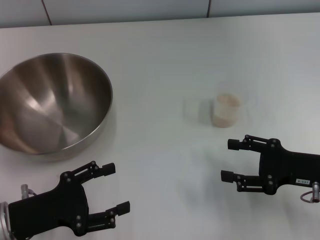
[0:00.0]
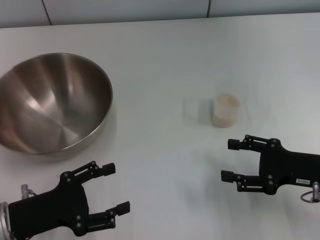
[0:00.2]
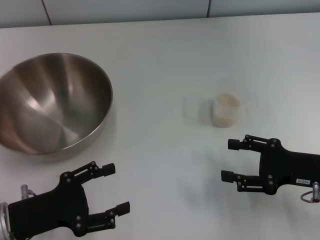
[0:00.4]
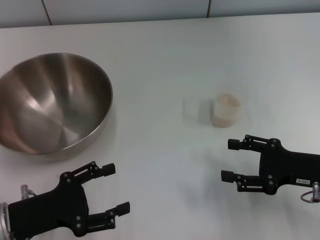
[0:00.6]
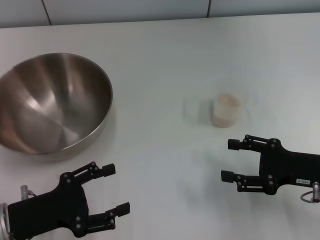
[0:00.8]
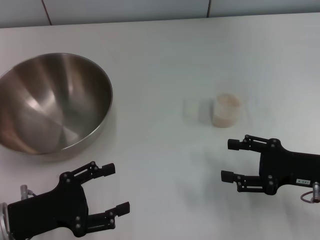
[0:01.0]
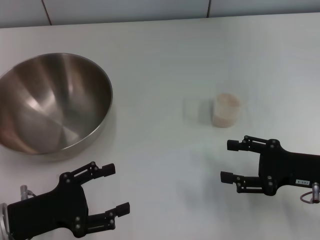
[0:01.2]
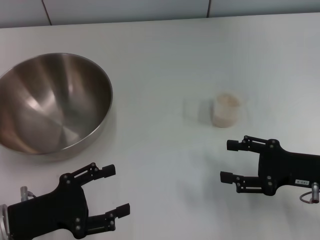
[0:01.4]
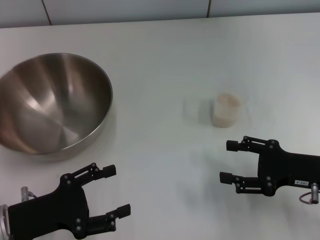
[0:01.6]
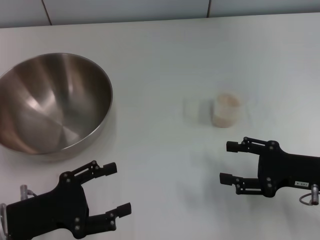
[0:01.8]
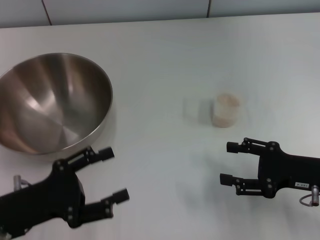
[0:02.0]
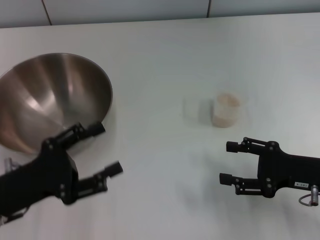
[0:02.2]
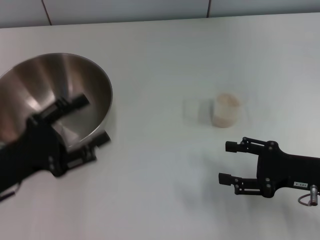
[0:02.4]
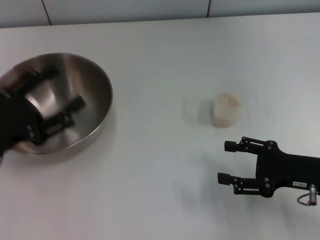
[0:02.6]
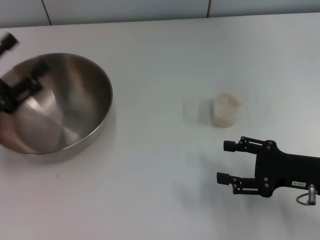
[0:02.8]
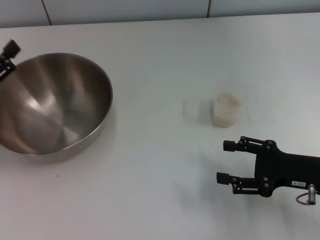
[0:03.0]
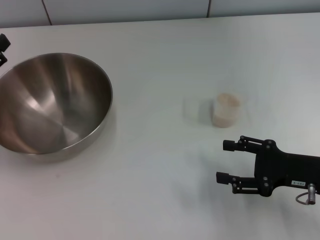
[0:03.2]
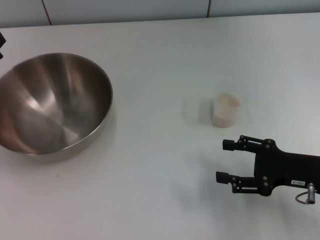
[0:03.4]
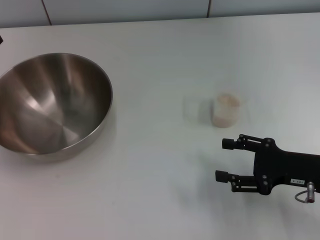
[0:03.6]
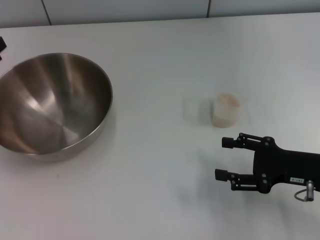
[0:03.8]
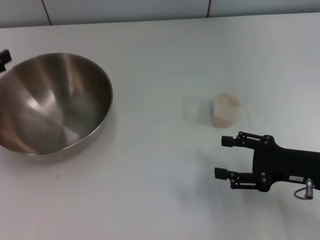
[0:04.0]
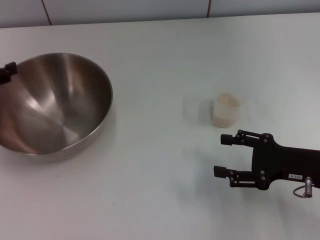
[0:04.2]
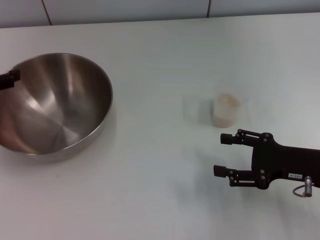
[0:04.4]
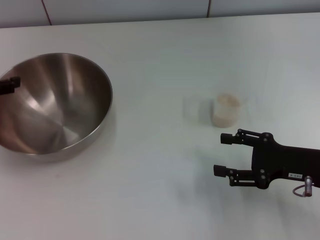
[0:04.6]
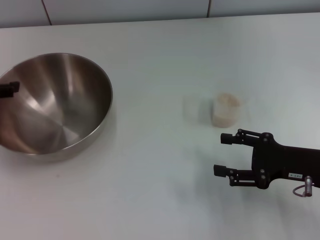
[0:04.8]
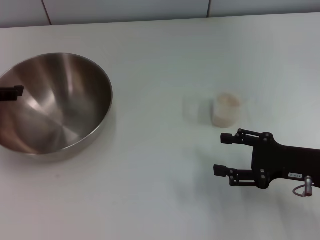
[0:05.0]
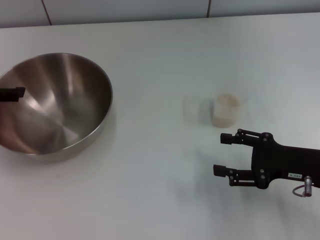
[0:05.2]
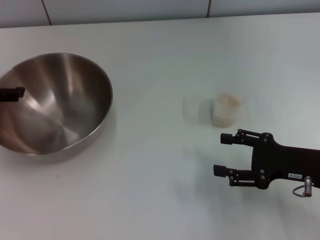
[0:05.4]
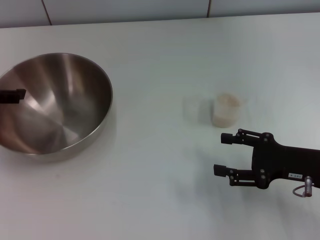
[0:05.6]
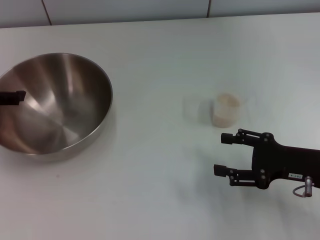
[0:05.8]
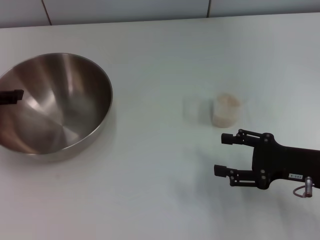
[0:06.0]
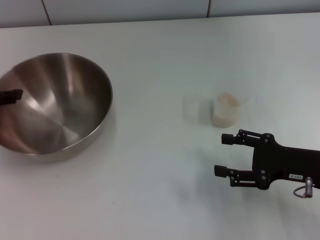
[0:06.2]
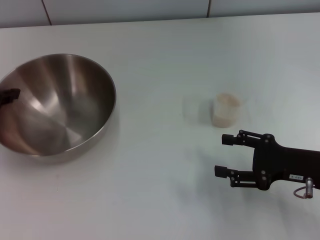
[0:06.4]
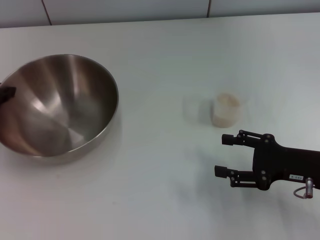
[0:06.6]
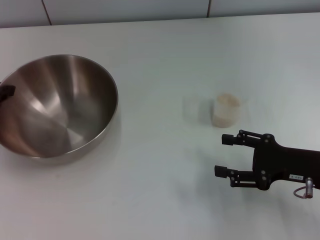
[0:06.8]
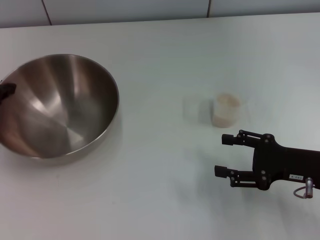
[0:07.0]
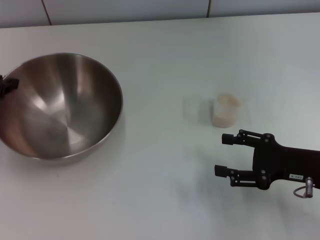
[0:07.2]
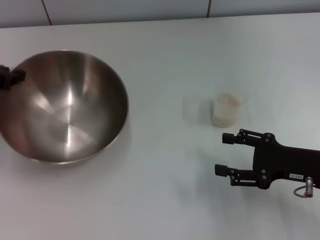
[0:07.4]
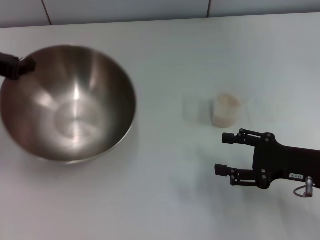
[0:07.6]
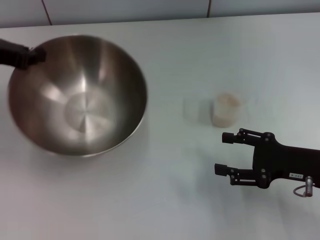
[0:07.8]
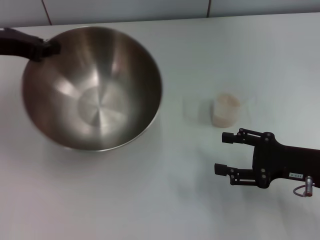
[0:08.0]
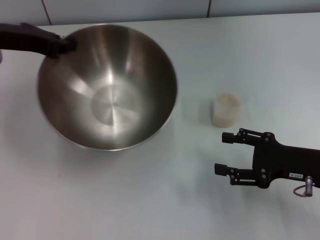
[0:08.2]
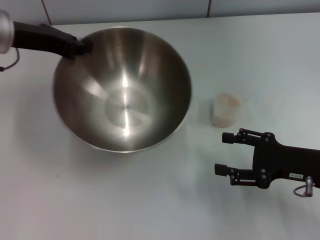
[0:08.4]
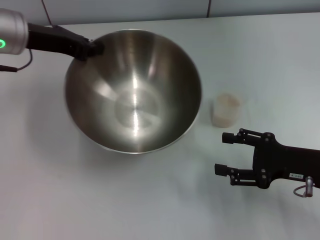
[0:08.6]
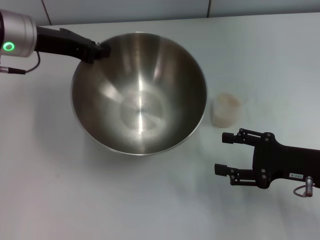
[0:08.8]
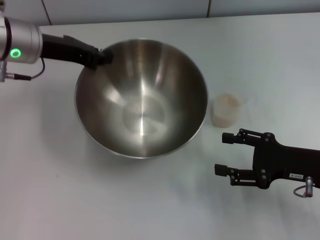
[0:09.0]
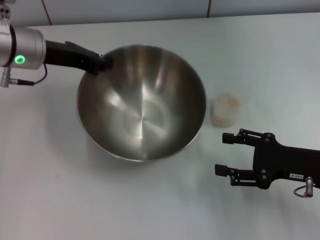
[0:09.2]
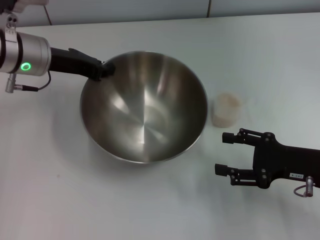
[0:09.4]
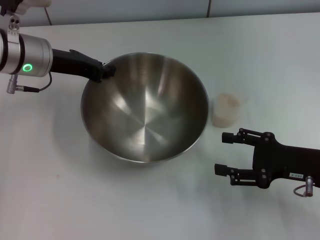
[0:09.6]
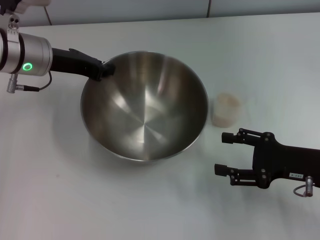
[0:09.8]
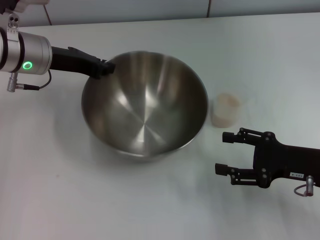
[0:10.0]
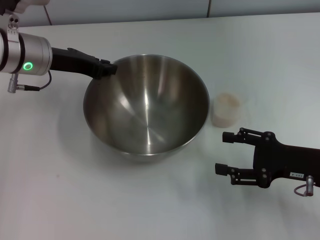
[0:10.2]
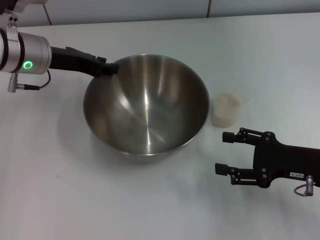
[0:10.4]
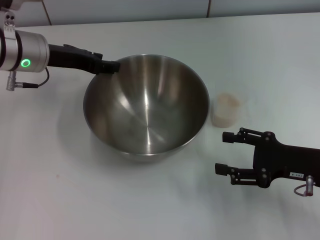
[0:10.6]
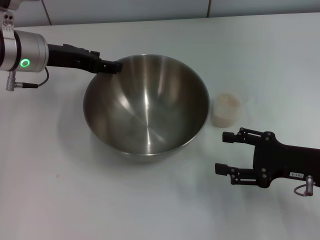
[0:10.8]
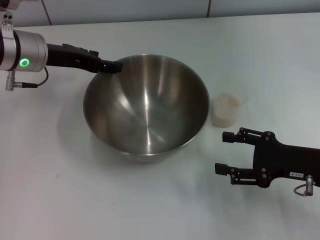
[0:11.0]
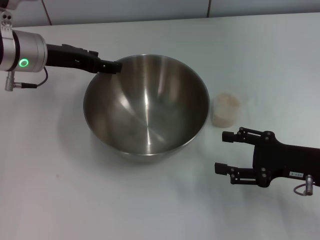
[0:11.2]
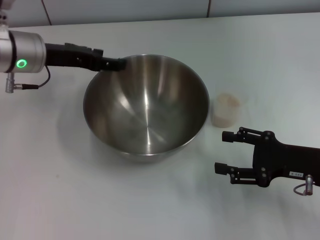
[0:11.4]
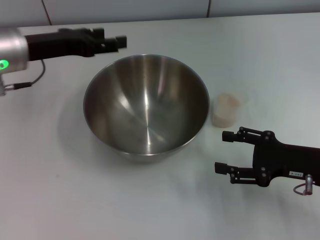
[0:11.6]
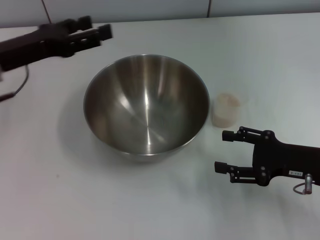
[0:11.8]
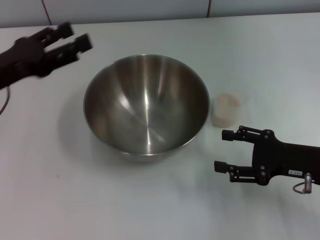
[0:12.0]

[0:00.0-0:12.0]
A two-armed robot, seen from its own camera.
Task of the whole recording: Place the bowl in the middle of the table with one hand and pour the rice from the grain cup into it with the other hand.
Step, 0:00.0 to 0:07.8: Pick up the bowl with the left gripper.
Step, 0:08.0 to 0:11.6: Place the bowl in the center of view with the left gripper.
0:00.0 to 0:01.6: Neither gripper changes place.
0:01.6 to 0:03.0: The left gripper heads forward, to the left and upward, covering roughly 10 cm.
0:03.0 to 0:04.4: The left gripper shifts approximately 5 cm forward.
0:04.4 to 0:06.0: The grippers make only small movements.
0:06.0 to 0:07.6: The left gripper moves roughly 5 cm, and closes up.
0:07.6 to 0:09.0: The left gripper travels to the right by roughly 10 cm.
0:09.0 to 0:10.4: The grippers make only small movements.
0:10.4 to 0:12.0: The left gripper goes roughly 10 cm backward and to the left, and opens.

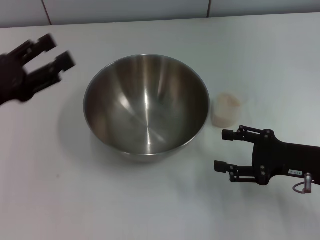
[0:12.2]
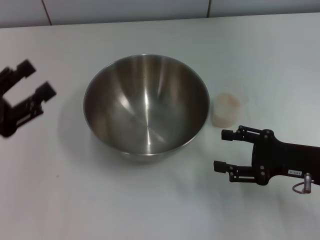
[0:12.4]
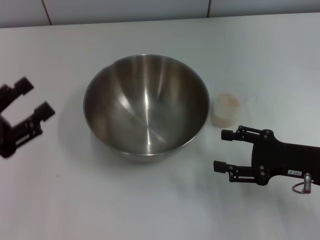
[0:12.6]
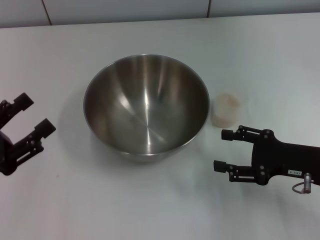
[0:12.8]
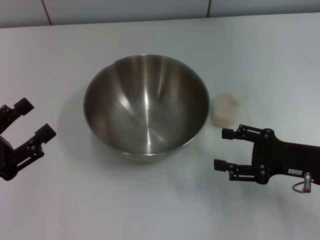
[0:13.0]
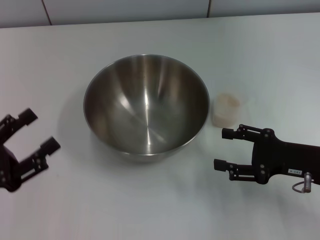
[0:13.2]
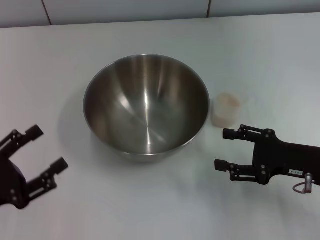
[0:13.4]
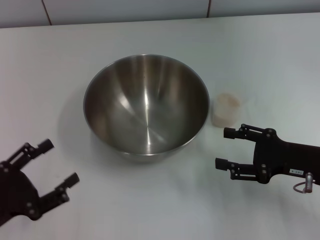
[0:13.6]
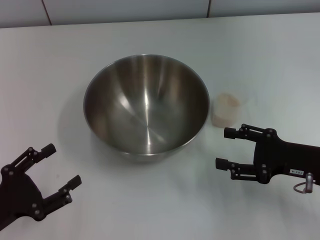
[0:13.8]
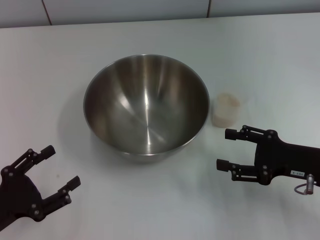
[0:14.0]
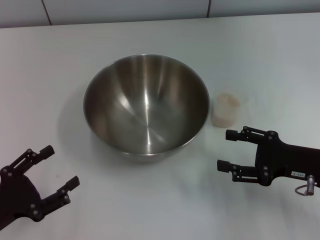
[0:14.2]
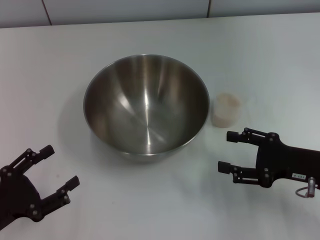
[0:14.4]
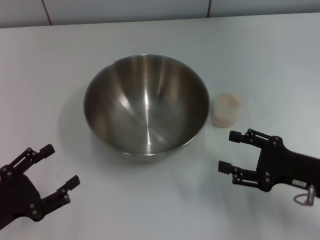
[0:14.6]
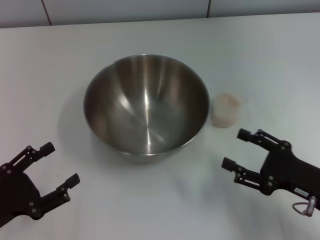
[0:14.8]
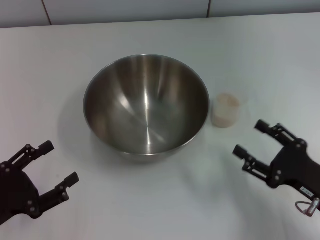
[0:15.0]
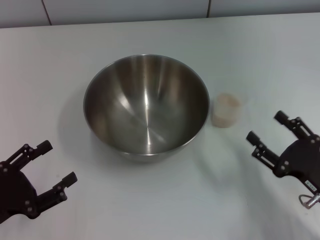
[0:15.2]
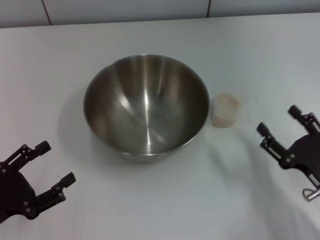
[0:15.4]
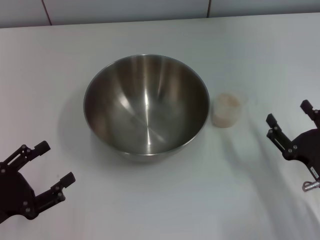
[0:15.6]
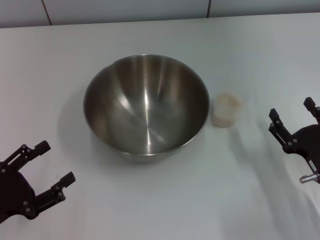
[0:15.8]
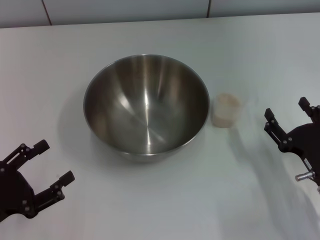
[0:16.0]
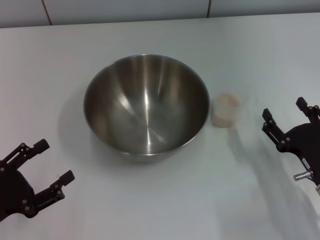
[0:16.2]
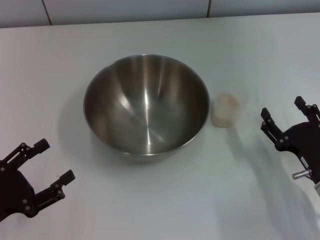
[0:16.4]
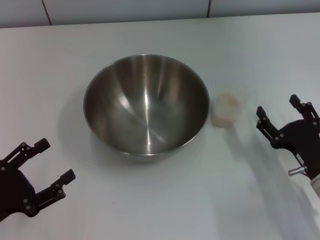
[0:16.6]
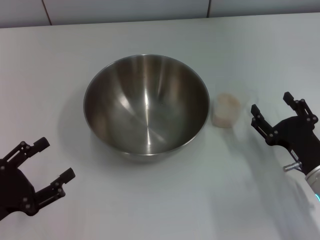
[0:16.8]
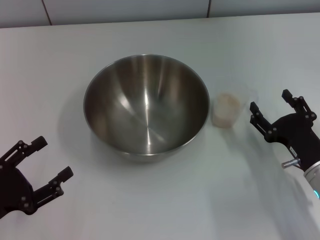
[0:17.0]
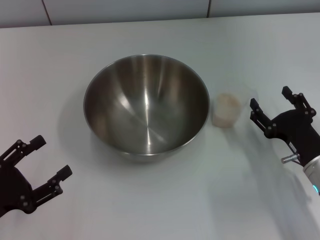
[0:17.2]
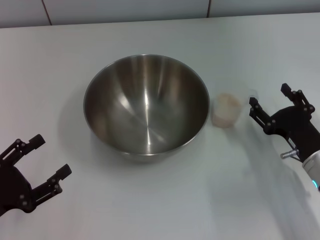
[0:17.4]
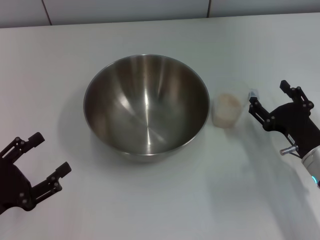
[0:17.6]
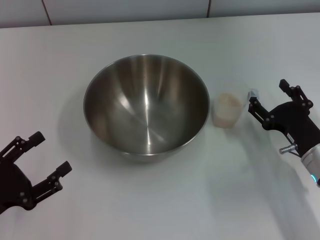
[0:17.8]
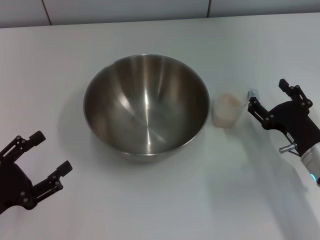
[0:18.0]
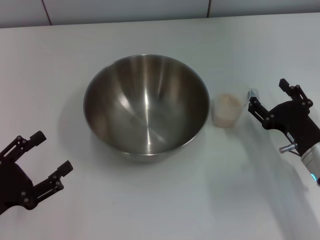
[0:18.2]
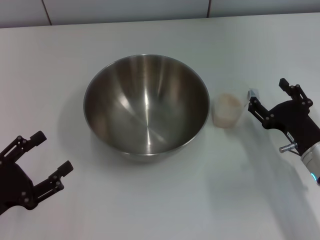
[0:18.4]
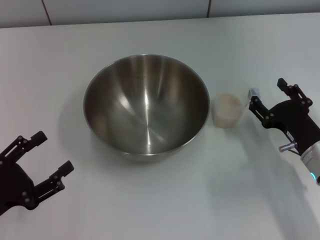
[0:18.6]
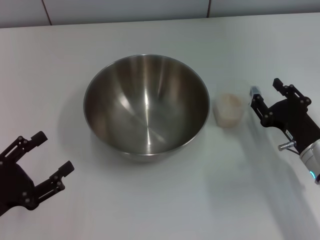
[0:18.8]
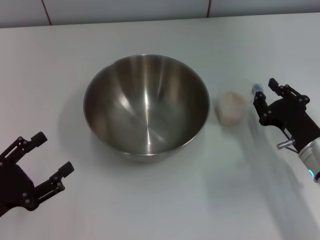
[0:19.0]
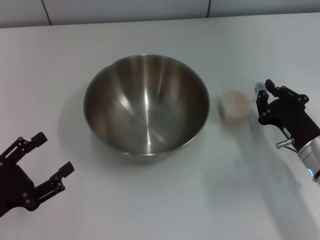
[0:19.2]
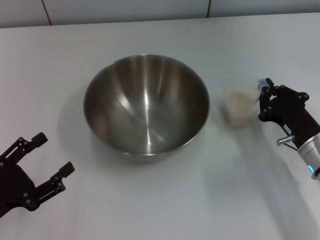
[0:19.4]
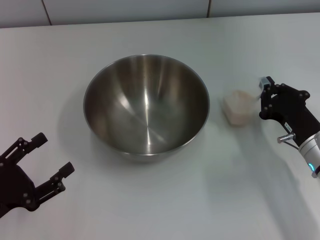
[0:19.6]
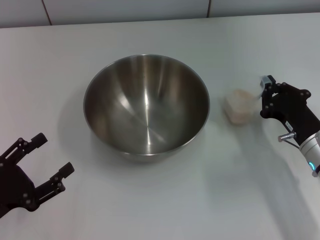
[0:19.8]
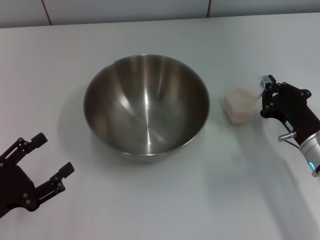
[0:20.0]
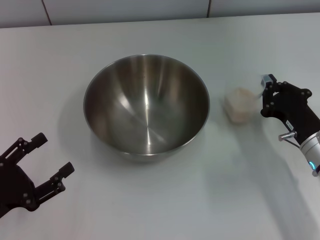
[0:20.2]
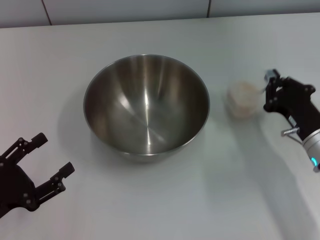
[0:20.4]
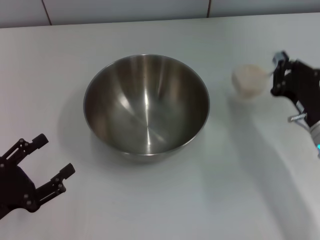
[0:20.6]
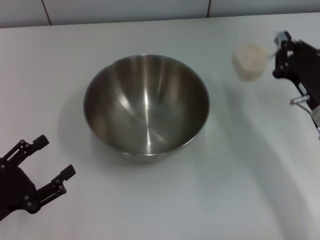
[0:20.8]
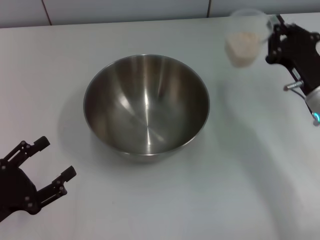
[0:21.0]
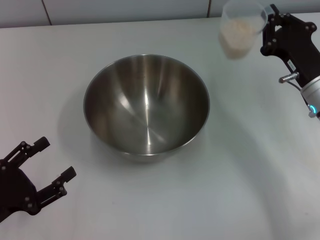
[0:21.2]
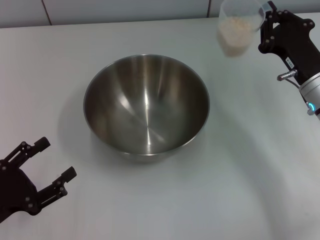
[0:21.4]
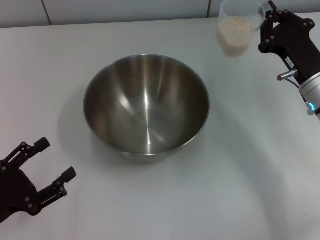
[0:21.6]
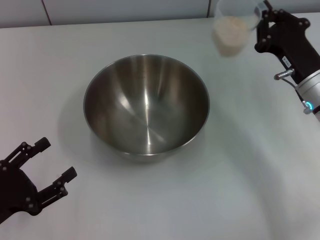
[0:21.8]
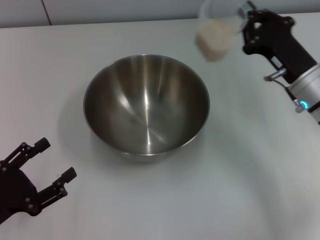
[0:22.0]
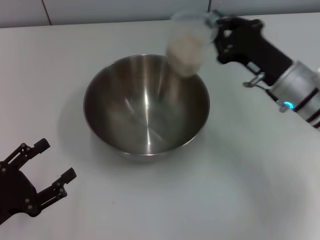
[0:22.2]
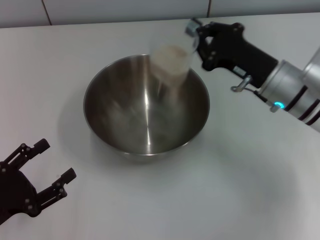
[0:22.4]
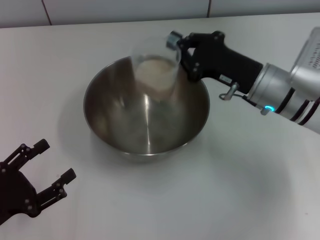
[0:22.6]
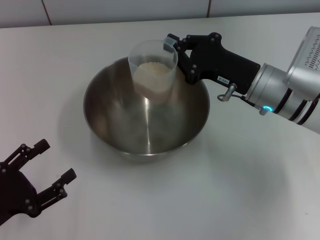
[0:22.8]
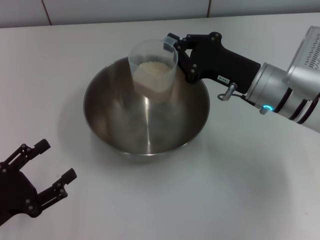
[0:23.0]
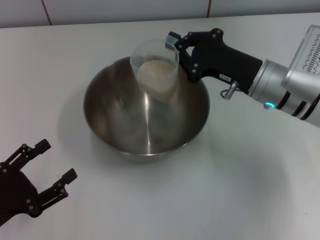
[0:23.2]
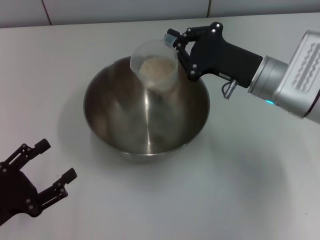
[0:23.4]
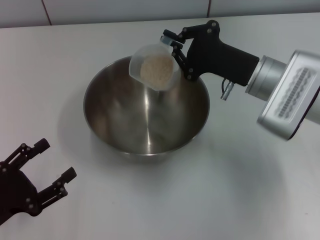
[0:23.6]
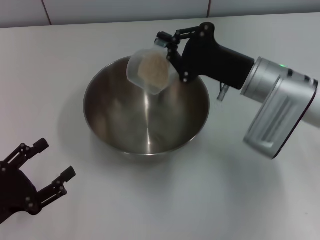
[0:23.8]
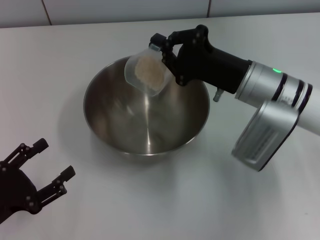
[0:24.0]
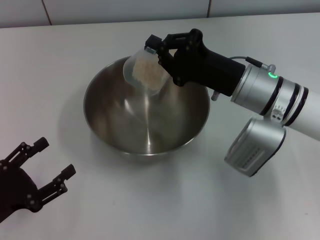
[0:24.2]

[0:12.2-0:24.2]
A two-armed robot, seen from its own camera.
Task of the whole recording: Place the bowl in the middle of the table with one hand and pour the rice from the grain cup into it with the other hand.
Step, 0:12.2 to 0:20.8: Pick up the cup with rice in it with the right gripper.
0:12.2 to 0:13.8: The left gripper shifts roughly 15 cm backward and downward.
0:13.8 to 0:15.2: The right gripper heads backward, covering about 10 cm.
0:16.6 to 0:18.2: The grippers stay close to where they were, moving slightly.
0:18.2 to 0:19.8: The right gripper closes.
0:19.8 to 0:21.2: The right gripper is displaced forward and upward by roughly 10 cm.
0:21.2 to 0:22.6: The right gripper travels to the left by roughly 5 cm.
